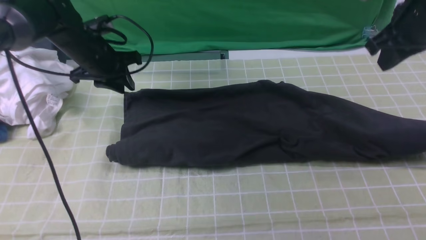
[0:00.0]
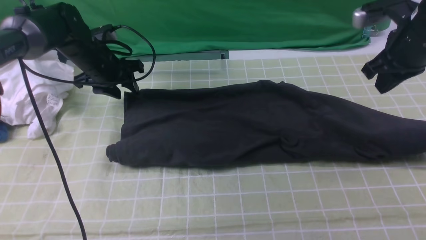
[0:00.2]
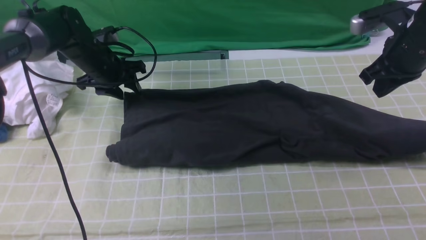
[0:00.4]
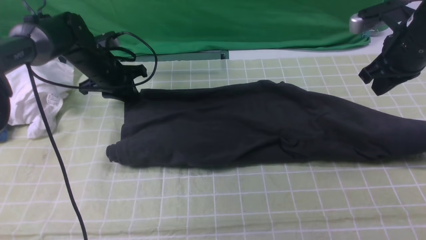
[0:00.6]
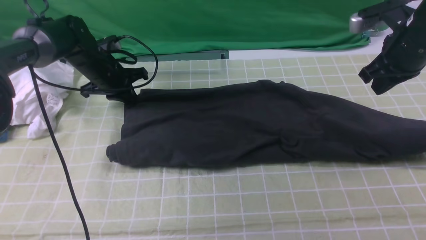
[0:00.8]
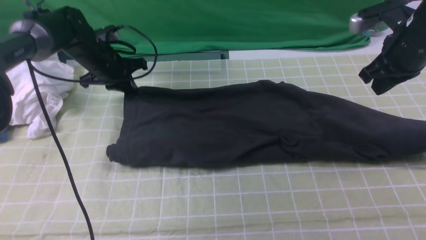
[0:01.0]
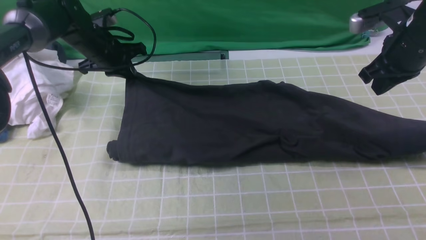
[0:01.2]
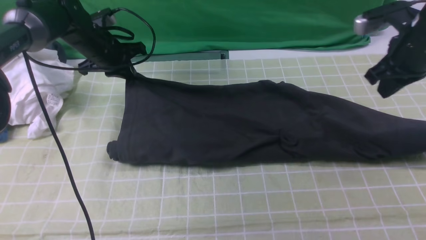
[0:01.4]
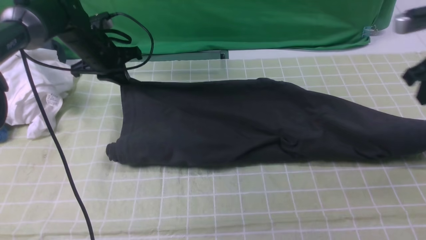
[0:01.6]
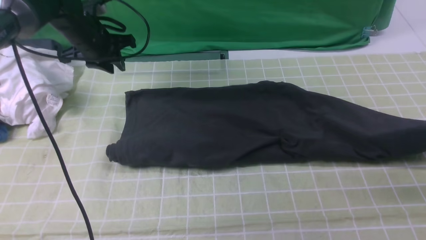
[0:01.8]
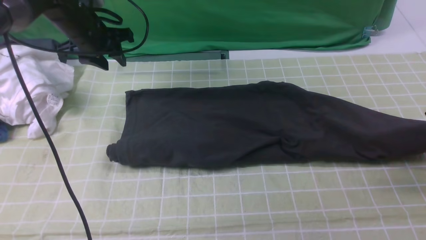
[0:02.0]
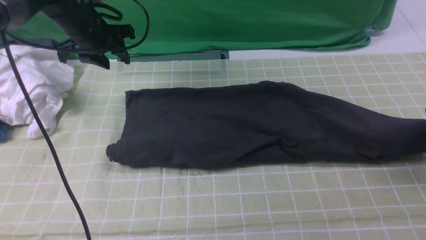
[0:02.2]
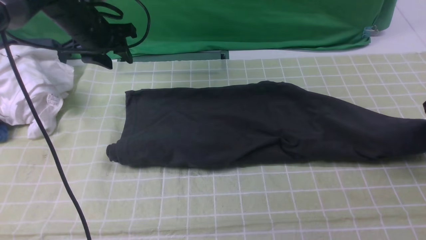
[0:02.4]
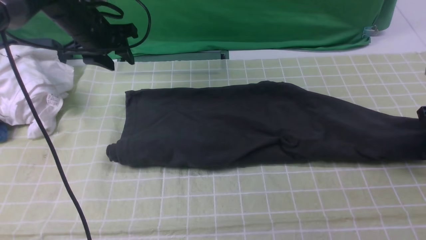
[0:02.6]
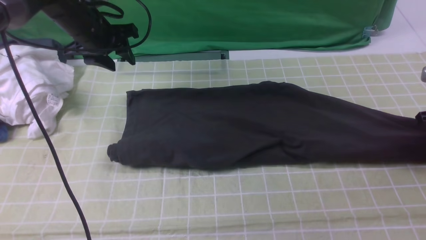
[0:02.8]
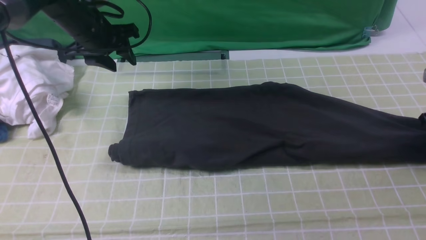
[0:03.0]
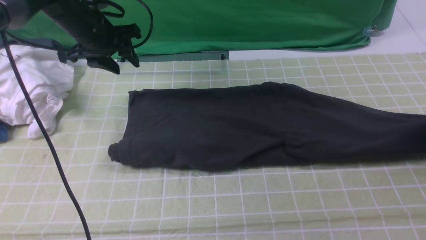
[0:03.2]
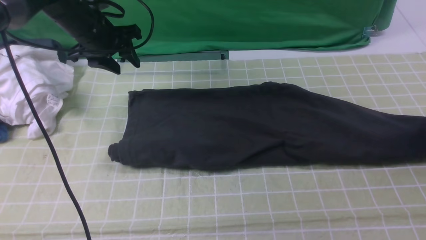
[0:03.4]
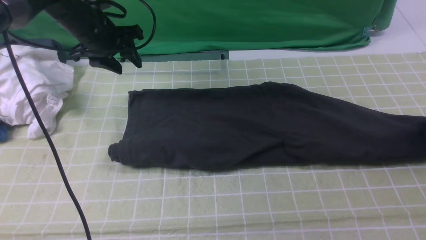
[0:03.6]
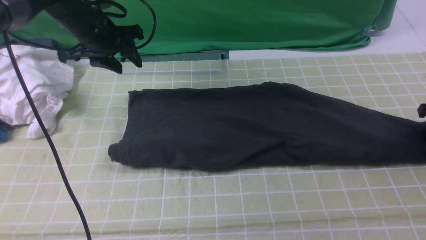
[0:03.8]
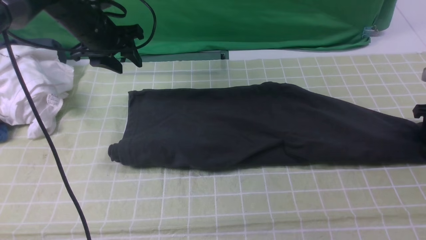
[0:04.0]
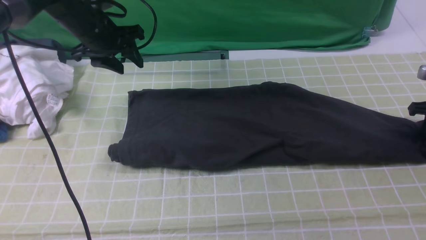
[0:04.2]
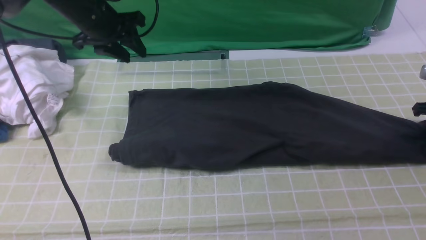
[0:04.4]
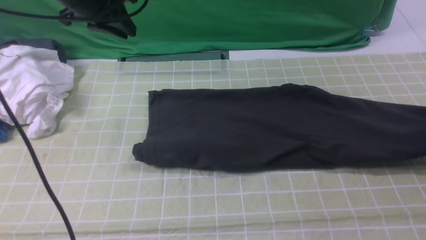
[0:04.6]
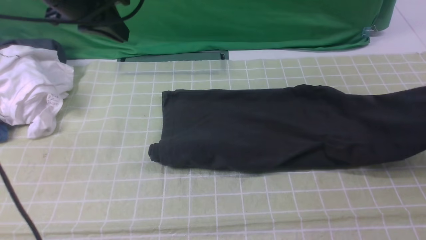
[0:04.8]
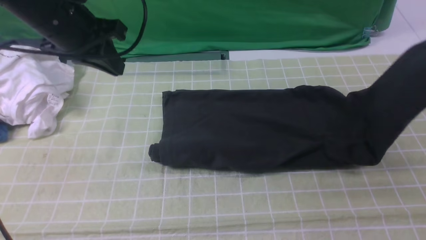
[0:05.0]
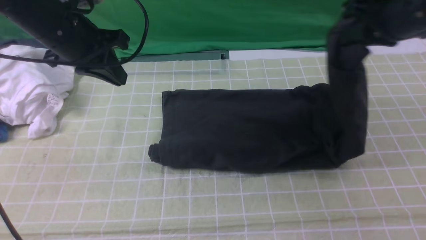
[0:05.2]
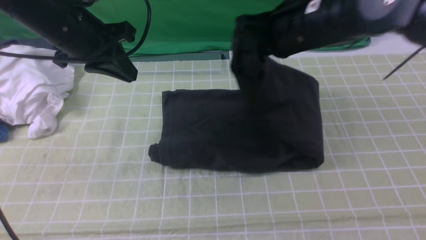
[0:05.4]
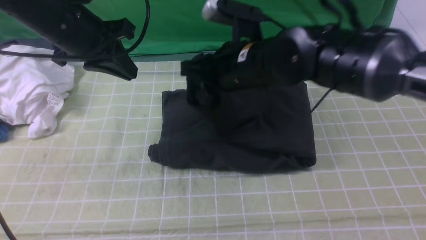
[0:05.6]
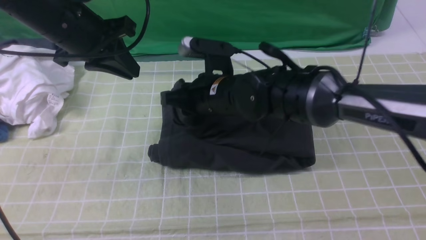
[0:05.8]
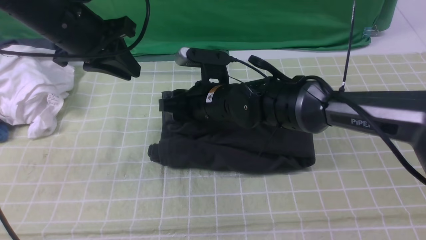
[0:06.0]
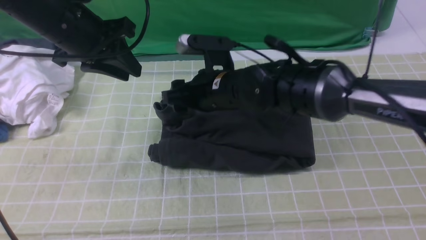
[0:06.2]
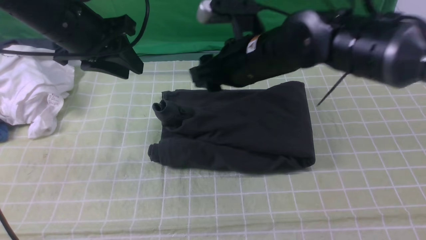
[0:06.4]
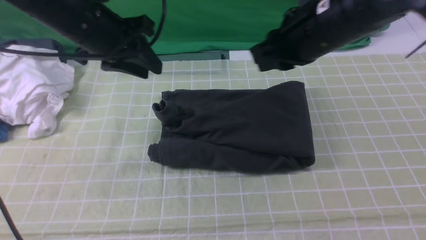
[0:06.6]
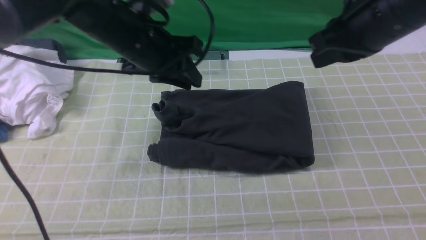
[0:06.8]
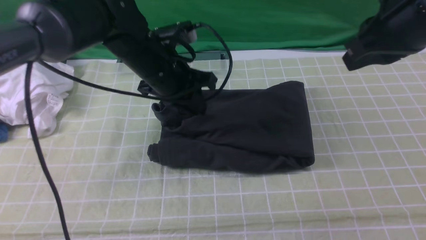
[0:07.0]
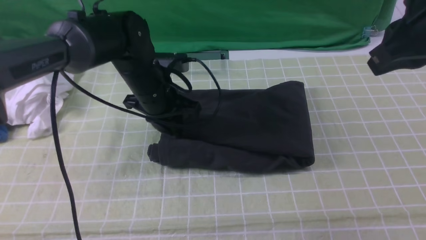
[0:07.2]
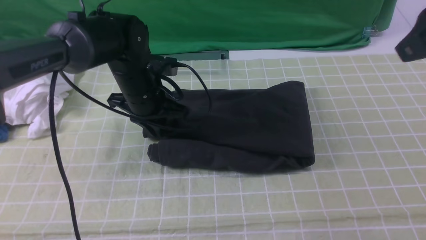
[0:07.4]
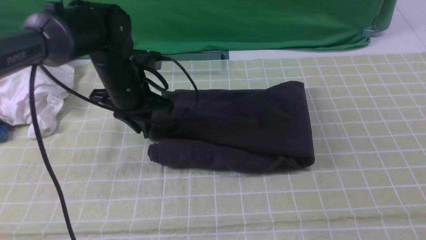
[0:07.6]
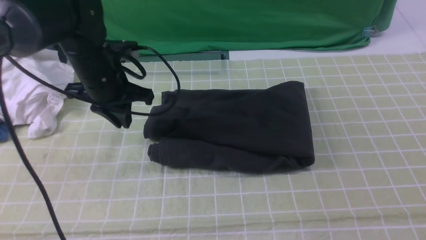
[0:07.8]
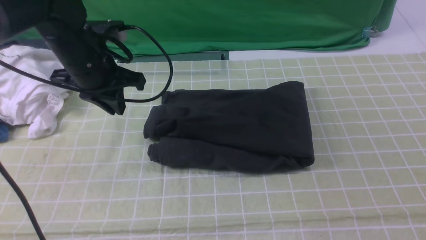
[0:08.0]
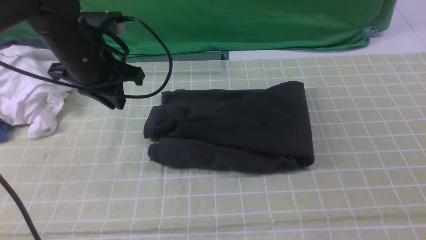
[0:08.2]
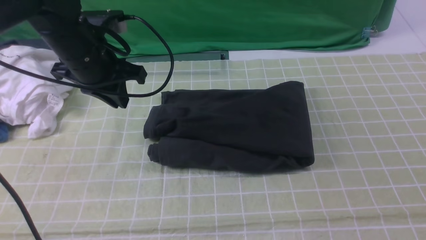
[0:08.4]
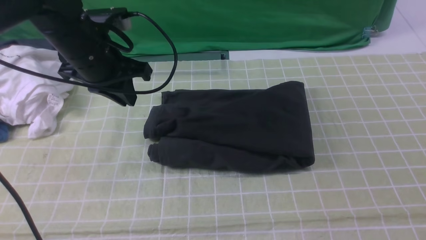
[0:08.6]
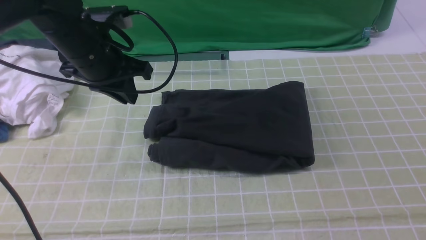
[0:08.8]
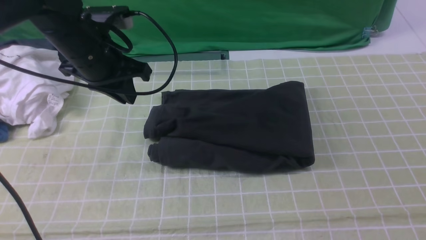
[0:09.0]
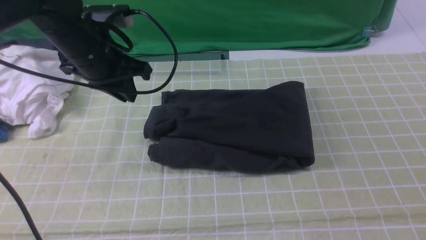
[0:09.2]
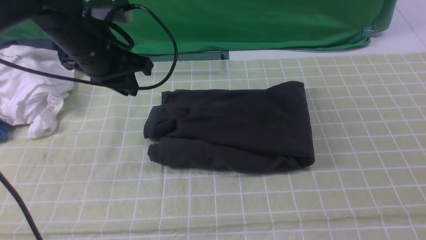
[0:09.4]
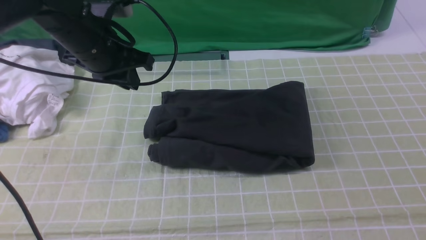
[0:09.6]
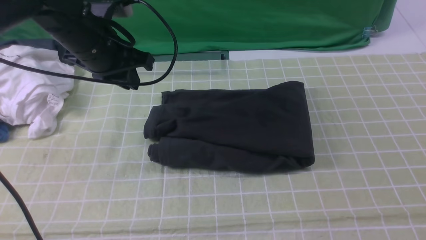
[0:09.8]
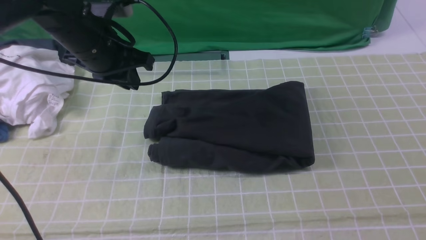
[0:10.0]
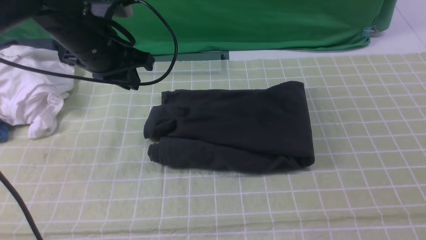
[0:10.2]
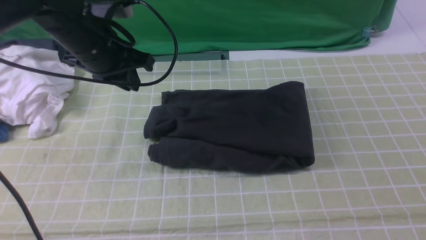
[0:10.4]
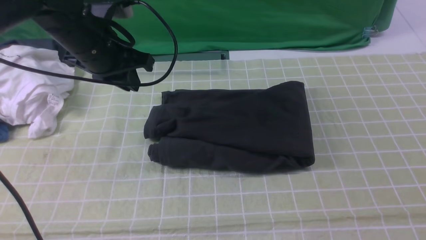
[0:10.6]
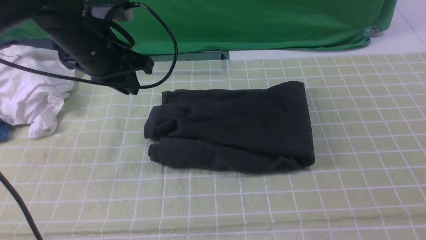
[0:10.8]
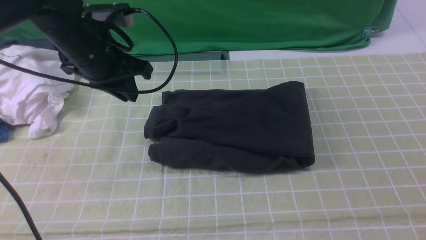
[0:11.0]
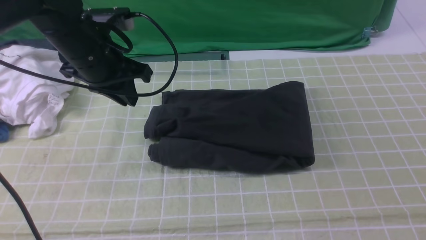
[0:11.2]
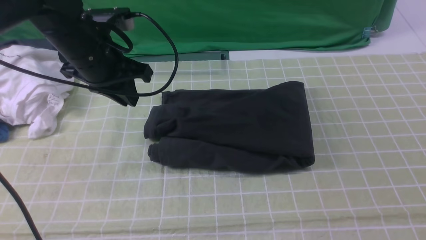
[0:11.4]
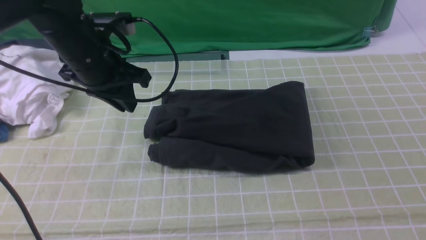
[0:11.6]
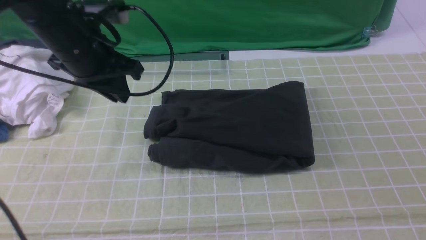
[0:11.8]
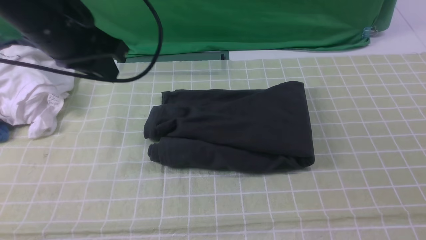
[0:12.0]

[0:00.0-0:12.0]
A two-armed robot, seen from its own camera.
Step, 0:00.0 to 0:04.2: use the right arm to clamp the right edge of the fabric.
Step, 0:04.6 to 0:06.2: use the right arm to drag the right edge of the fabric to the left and folds it over the left edge.
0:00.0 to 0:01.6: The right gripper goes approximately 5 cm to the right.
0:01.6 to 0:03.0: The right gripper heads downward and to the right, covering approximately 10 cm, and opens its fingers. Meanwhile the left gripper opens up.
0:03.0 to 0:04.4: The right gripper closes up.
0:04.4 to 0:06.0: The left gripper shifts approximately 10 cm backward, while the right gripper goes some 40 cm to the left, and opens up.
0:06.0 to 0:07.6: The right gripper moves to the right, upward and backward, roughly 40 cm, and closes its fingers. Meanwhile the left gripper is displaced downward by about 10 cm.
0:07.6 to 0:09.0: The right gripper heads downward and backward, covering some 20 cm; the left gripper shifts approximately 5 cm upward.
0:09.0 to 0:10.4: The right gripper is displaced downward by some 5 cm.
0:10.4 to 0:12.0: The left gripper moves upward and backward, roughly 10 cm.

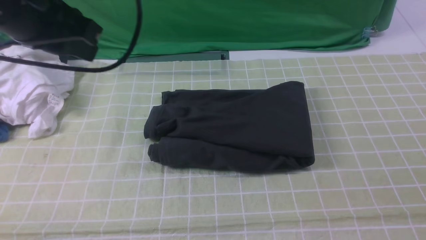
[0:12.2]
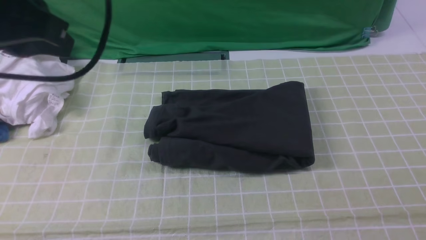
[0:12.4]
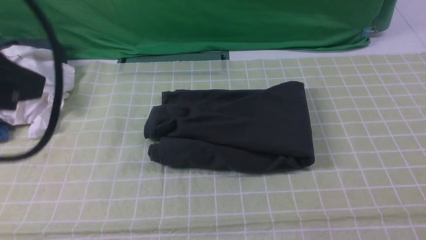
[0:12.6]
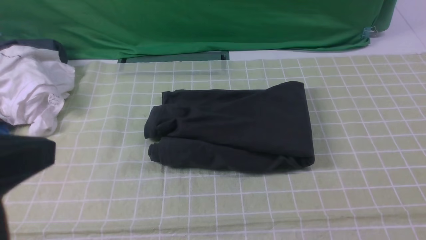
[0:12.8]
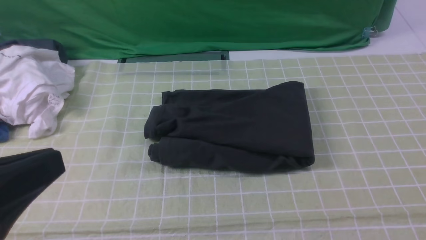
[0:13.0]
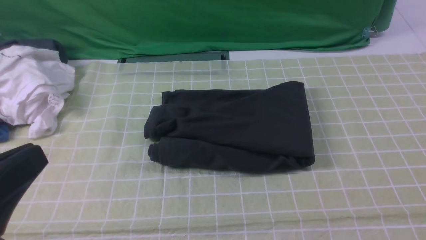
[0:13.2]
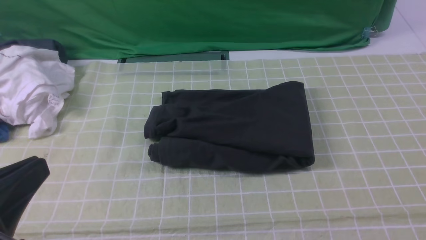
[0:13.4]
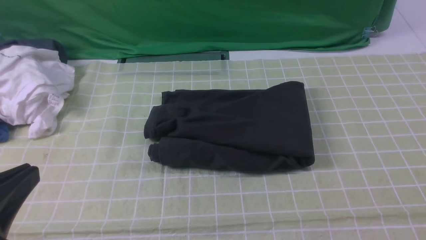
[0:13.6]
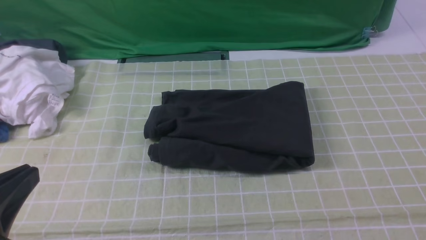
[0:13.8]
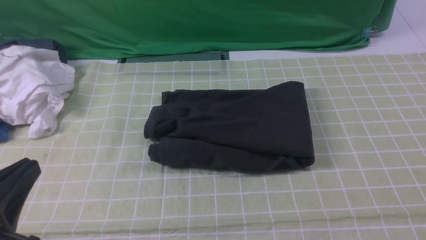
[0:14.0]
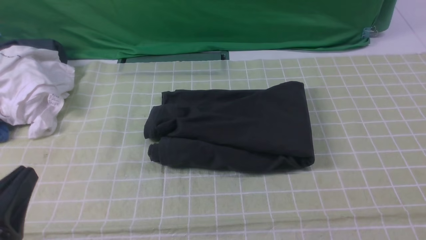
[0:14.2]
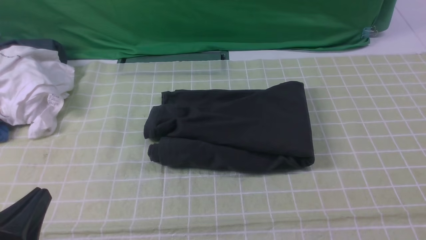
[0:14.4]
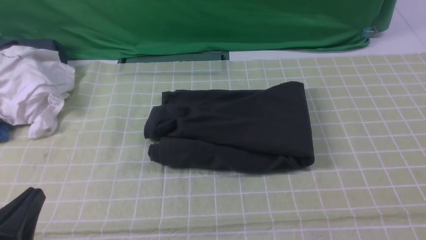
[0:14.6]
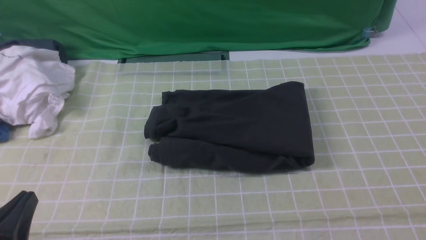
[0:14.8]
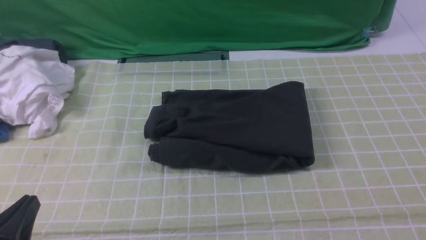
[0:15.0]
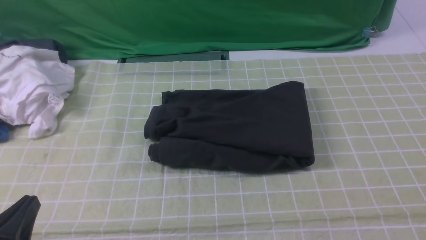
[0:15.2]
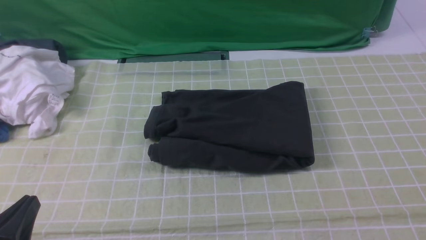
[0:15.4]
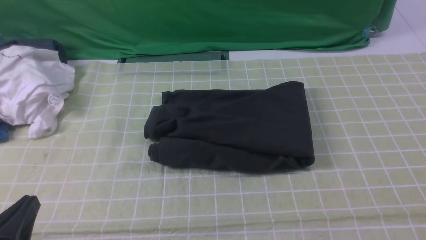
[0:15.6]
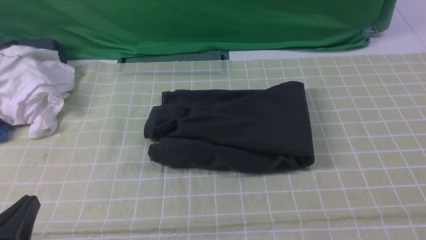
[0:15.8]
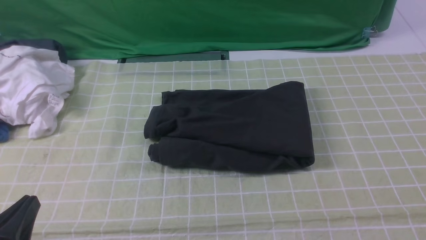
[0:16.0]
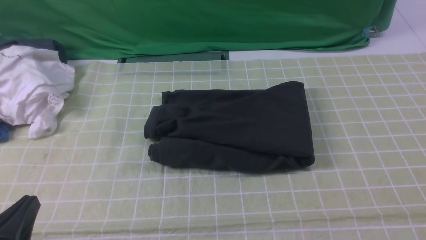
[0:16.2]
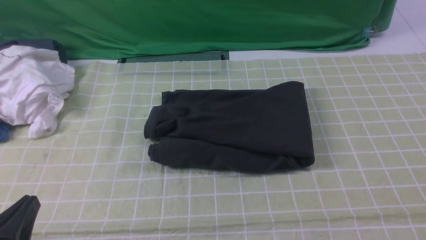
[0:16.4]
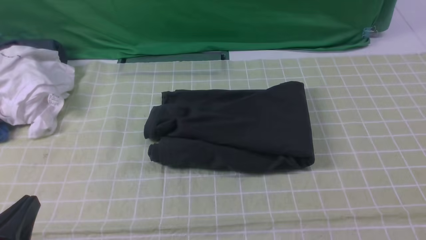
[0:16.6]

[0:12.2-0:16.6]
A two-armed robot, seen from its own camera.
0:12.2 to 0:13.6: The left gripper goes about 25 cm backward and downward.
0:13.6 to 0:15.2: The left gripper goes approximately 10 cm downward.
0:15.2 to 0:16.6: Neither gripper changes place.
